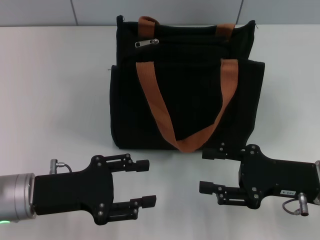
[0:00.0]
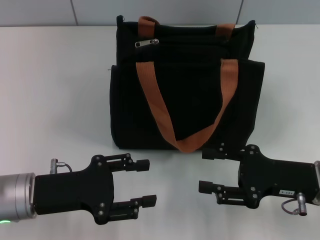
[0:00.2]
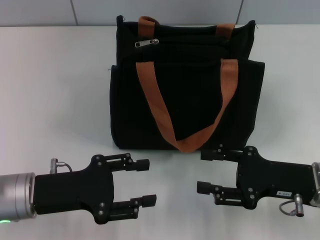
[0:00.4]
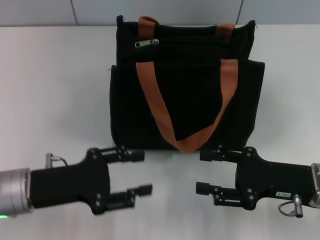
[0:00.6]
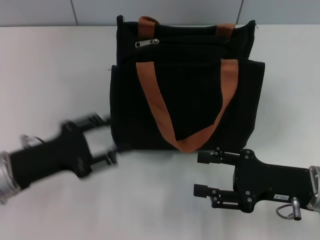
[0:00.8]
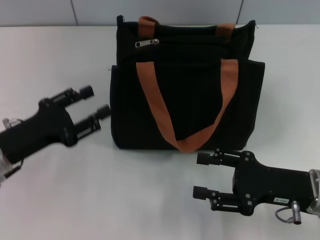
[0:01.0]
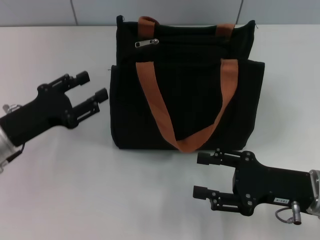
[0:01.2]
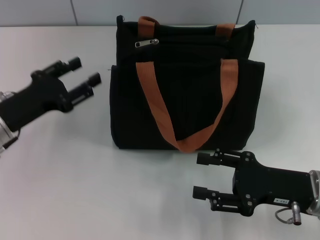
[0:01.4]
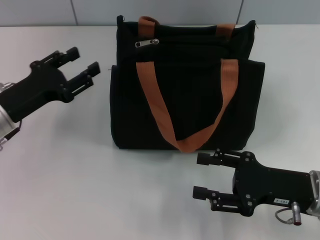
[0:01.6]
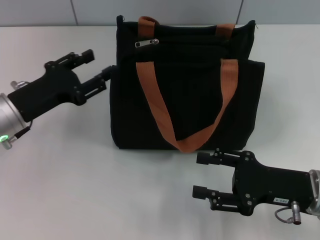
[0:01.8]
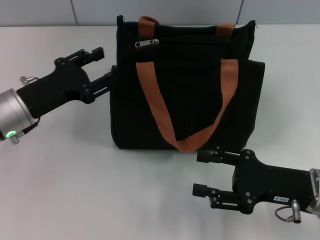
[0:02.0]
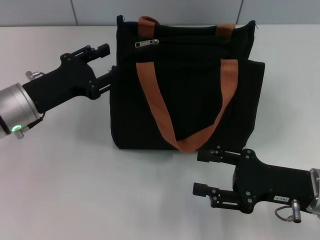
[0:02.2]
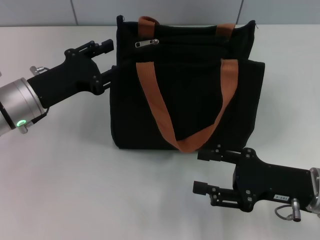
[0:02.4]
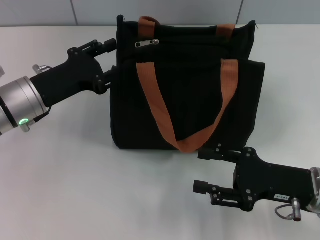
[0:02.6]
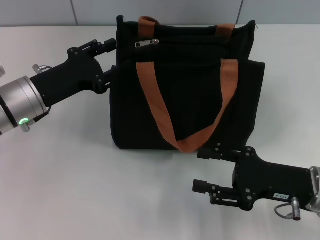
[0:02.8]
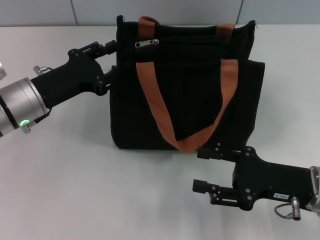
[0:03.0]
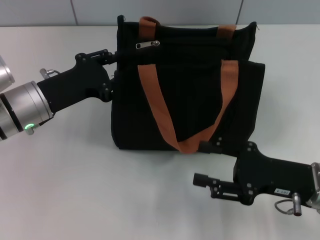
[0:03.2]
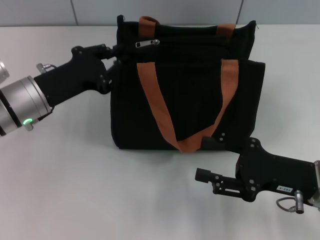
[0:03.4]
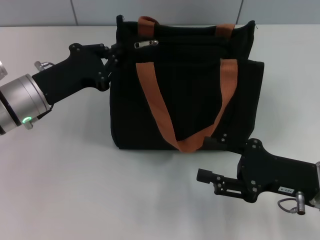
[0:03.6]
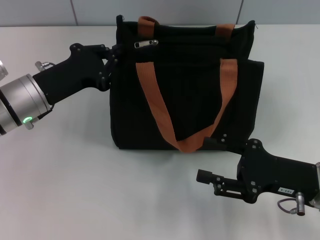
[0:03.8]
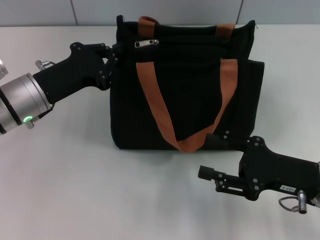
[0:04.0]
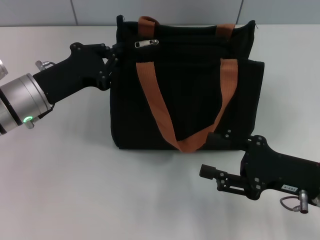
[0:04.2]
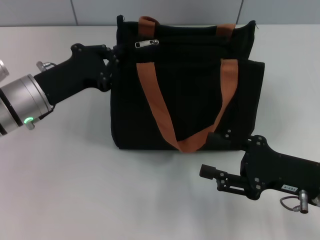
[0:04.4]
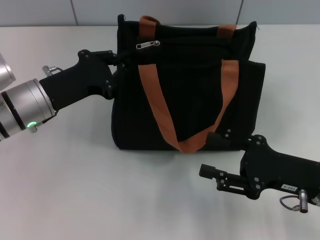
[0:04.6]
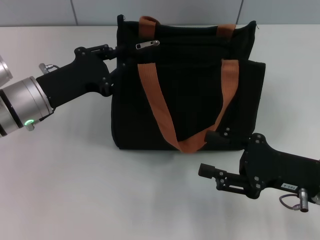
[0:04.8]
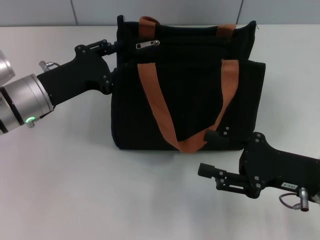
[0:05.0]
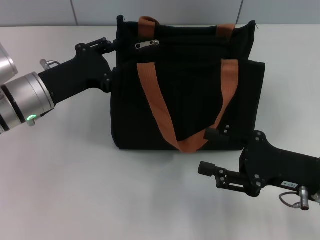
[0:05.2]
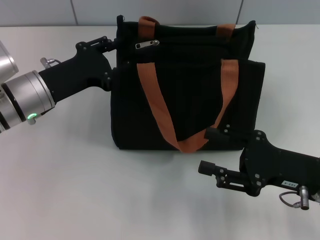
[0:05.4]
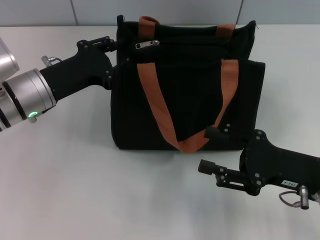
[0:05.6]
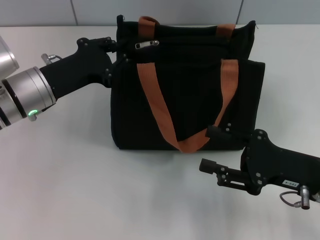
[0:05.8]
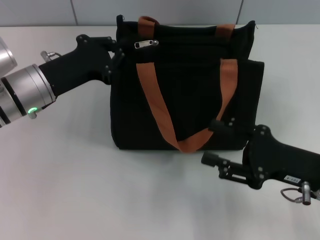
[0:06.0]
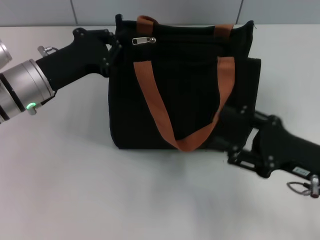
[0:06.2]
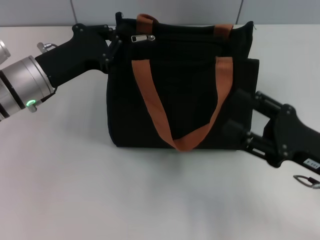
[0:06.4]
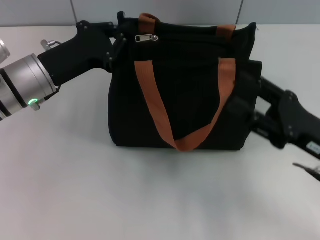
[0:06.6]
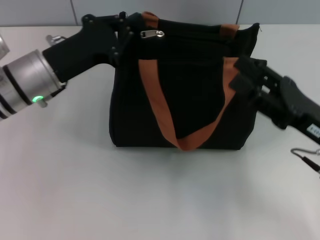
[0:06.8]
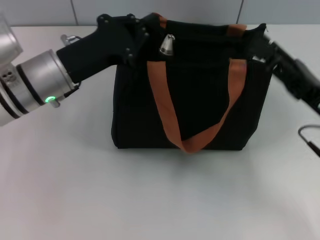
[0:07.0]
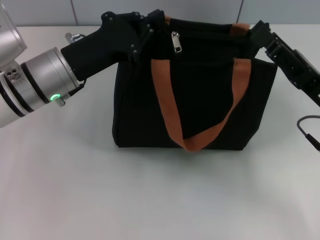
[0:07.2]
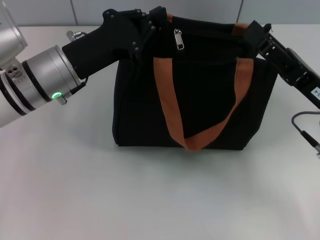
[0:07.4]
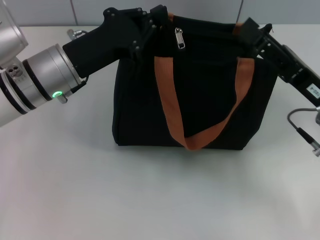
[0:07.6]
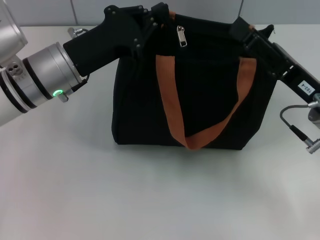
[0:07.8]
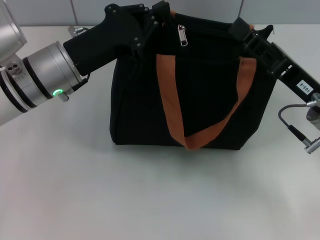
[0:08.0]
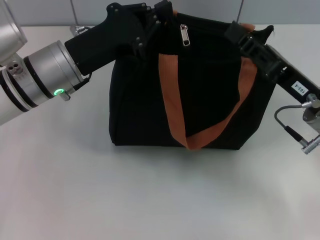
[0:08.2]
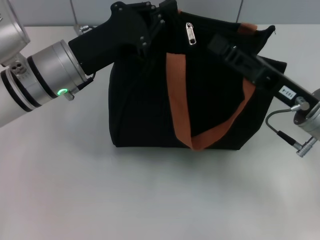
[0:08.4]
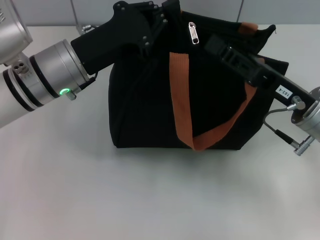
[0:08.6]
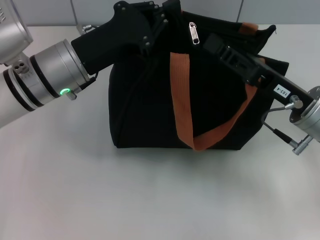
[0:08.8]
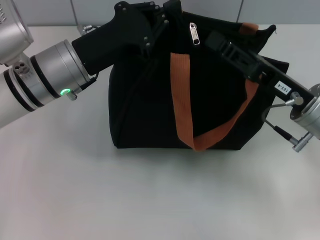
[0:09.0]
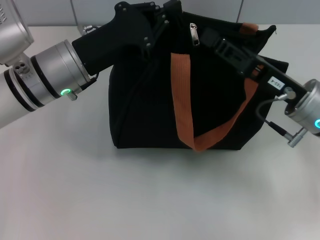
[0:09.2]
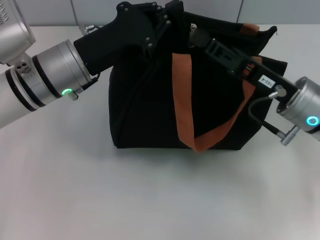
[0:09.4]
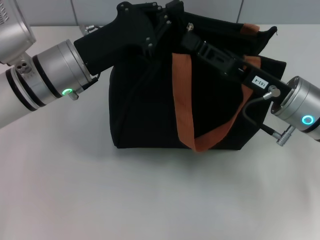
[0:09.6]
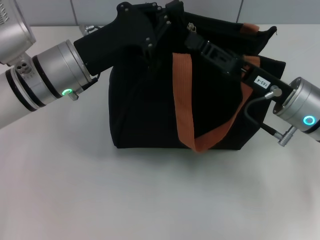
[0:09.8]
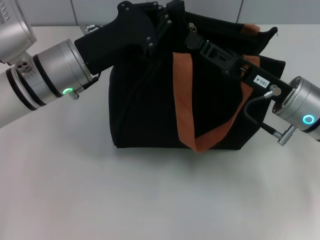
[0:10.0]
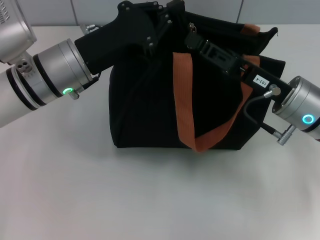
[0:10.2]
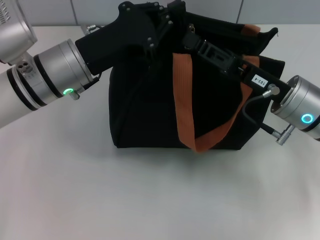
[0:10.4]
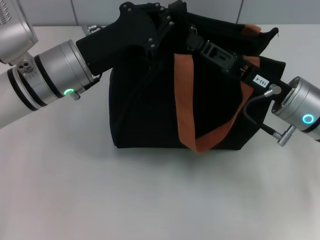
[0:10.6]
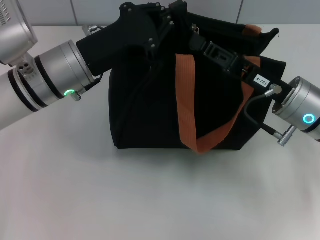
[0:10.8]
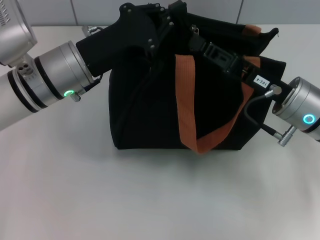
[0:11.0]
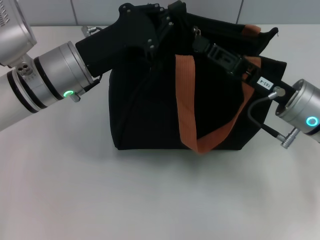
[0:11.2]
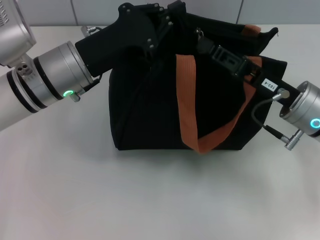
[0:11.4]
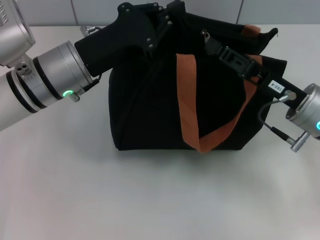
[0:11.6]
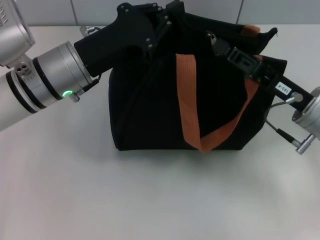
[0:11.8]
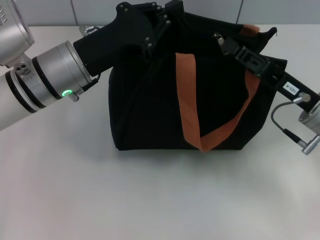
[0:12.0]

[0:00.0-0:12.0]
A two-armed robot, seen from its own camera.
0:00.0 to 0:01.6: The left gripper is displaced forward by roughly 5 cm.
0:01.6 to 0:03.0: The left gripper changes place by about 5 cm.
0:03.0 to 0:04.4: The left gripper closes.
0:04.4 to 0:06.0: The left gripper opens and closes again.
0:06.0 to 0:07.6: The right gripper shifts by approximately 5 cm.
0:07.6 to 0:09.0: The right gripper closes.
0:09.0 to 0:12.0: The grippers move only a little.

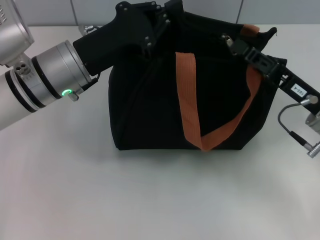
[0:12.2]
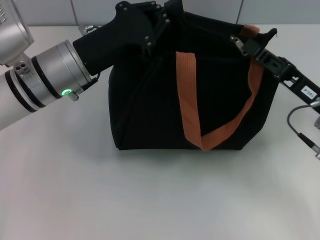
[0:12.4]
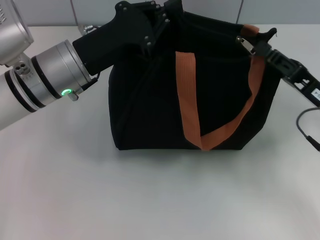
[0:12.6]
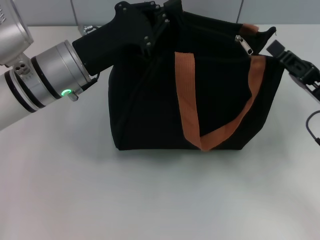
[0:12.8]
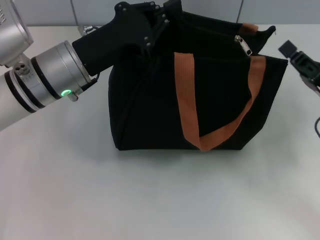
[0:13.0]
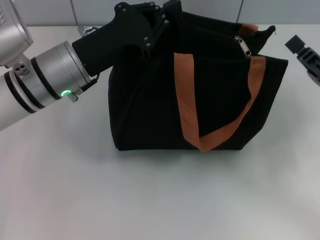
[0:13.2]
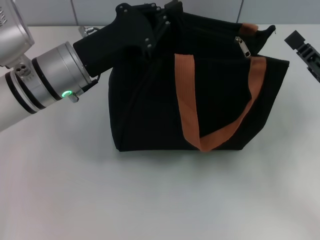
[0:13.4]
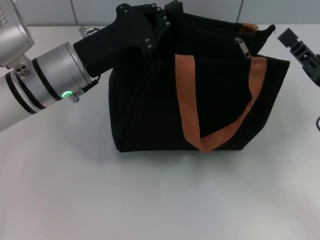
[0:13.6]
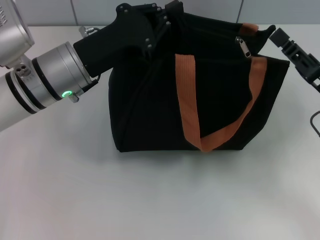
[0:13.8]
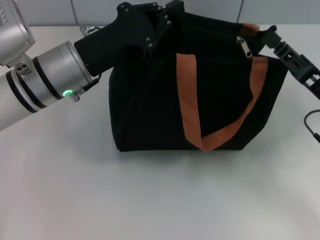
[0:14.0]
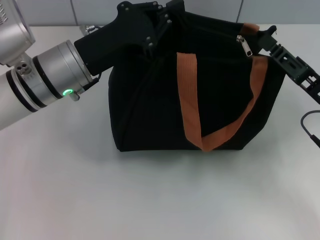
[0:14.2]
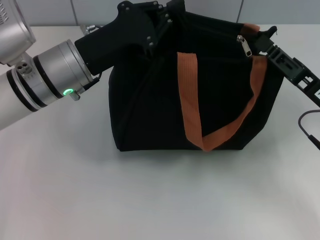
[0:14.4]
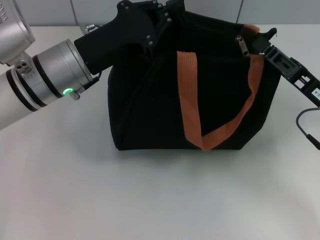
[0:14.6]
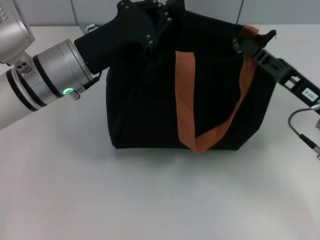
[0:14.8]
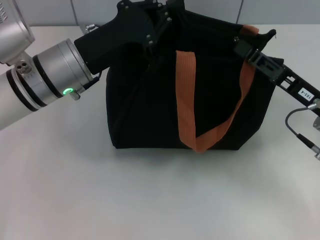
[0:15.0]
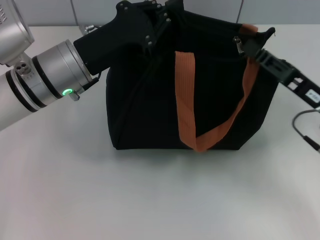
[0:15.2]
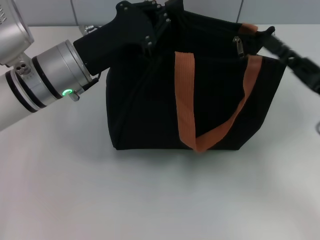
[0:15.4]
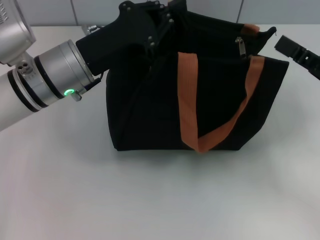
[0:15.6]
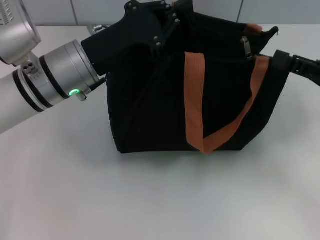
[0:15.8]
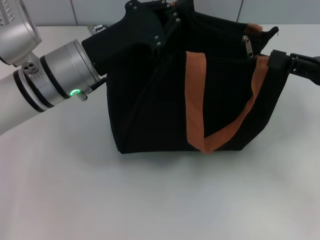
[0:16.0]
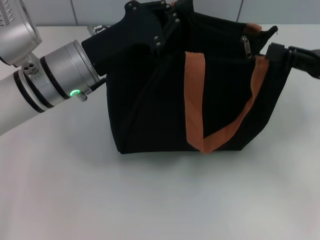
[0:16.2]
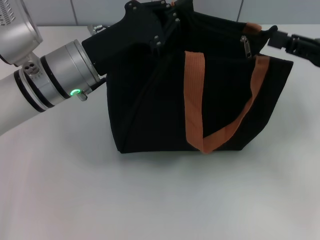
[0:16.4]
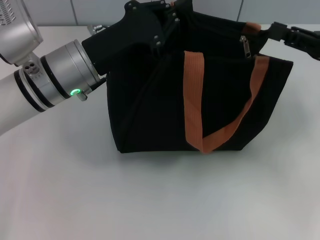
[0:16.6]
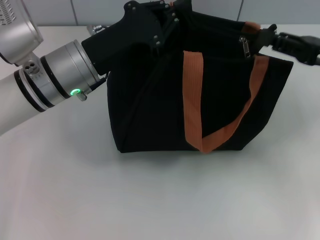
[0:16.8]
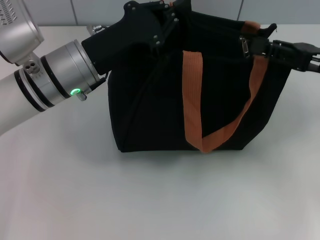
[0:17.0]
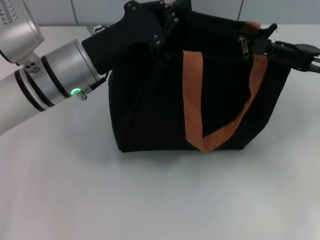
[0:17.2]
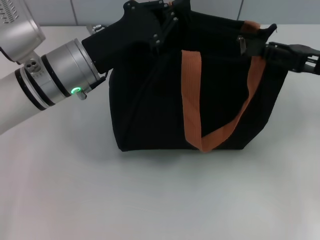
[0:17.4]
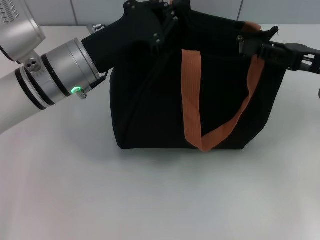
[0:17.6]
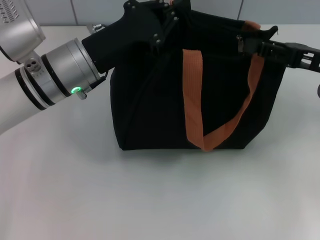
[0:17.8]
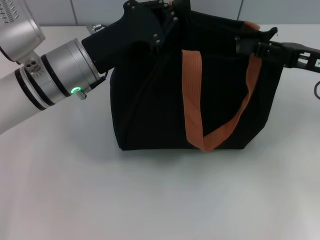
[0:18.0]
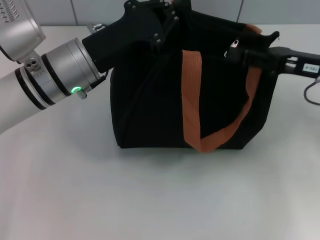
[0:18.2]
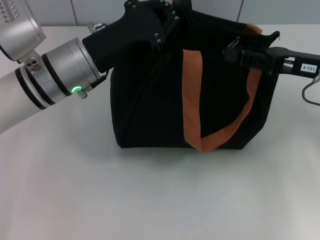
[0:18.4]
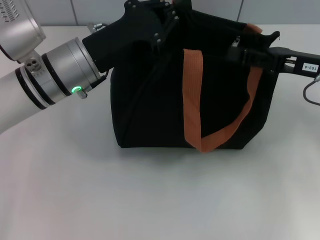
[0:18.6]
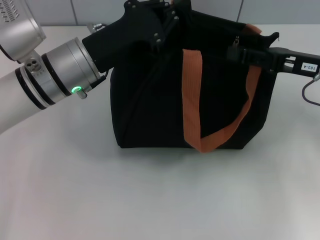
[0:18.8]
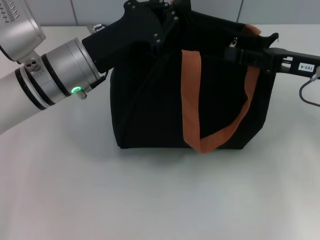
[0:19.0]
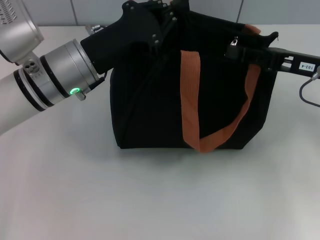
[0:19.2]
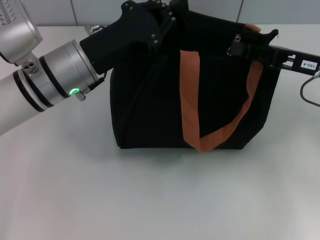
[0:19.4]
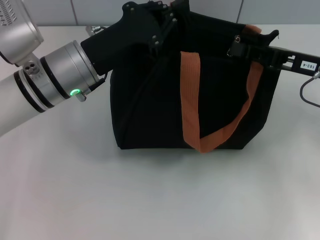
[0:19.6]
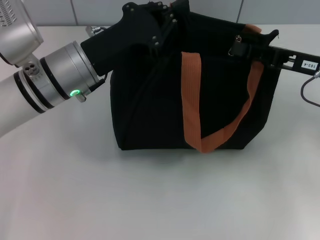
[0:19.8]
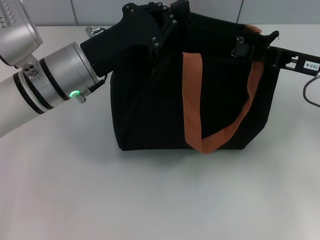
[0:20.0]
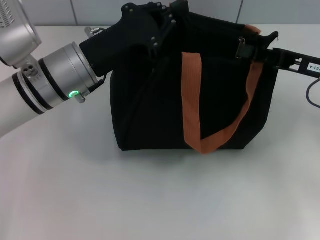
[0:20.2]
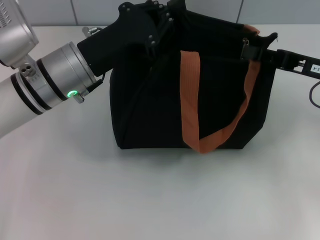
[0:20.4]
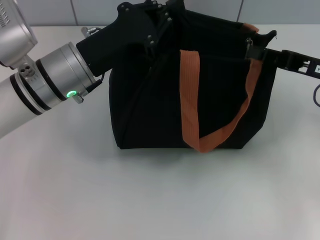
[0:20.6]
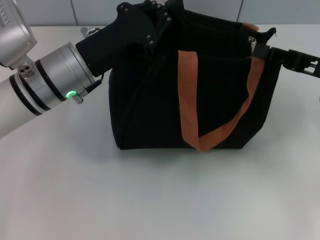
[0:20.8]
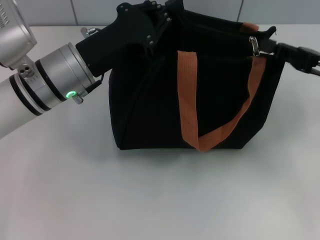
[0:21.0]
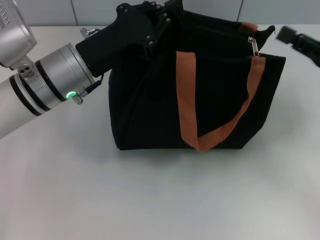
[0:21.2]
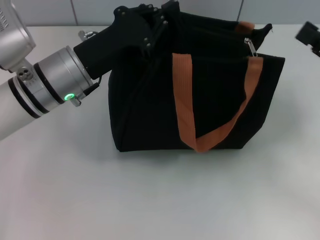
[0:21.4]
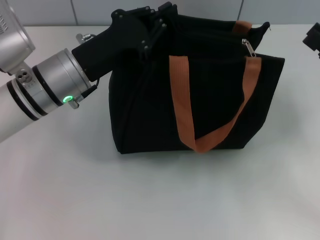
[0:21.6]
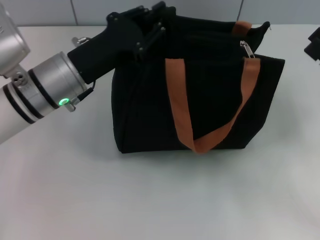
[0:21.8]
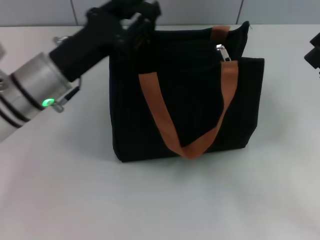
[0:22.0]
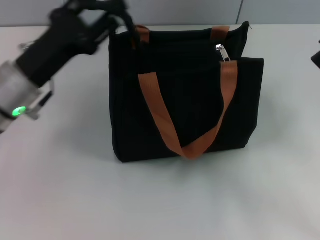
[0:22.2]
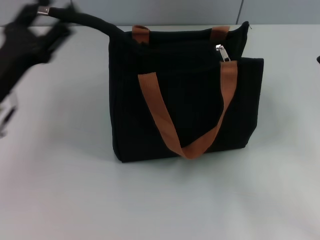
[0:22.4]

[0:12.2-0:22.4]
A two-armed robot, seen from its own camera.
Step, 0:12.2 to 0:21.0: Pull up the zipper with your right hand.
0:12.2 to 0:15.2: The grippers move only a little.
0:15.2 to 0:16.6: The right gripper shifts about 10 cm upward and to the right.
0:16.6 to 0:21.0: The grippers stay close to where they were, moving slightly.
0:21.0 to 0:22.4: The right gripper heads backward, covering roughly 10 cm, and opens up. Meanwhile the left gripper heads to the left and backward, covering approximately 10 cm, and opens up.
